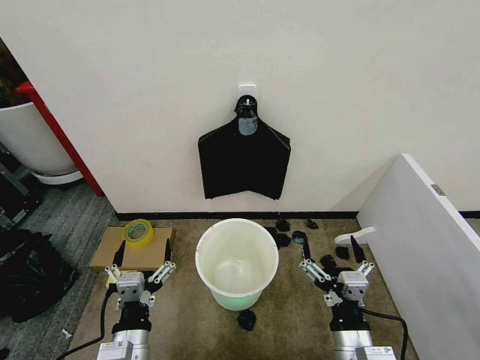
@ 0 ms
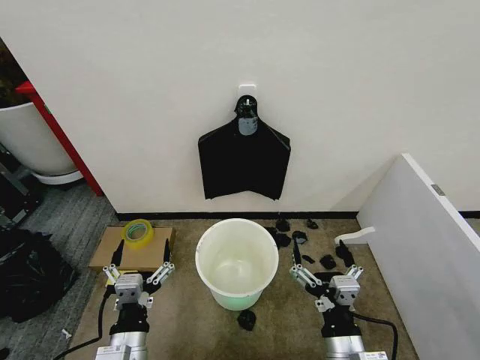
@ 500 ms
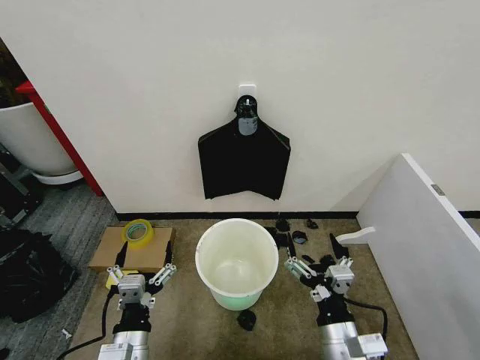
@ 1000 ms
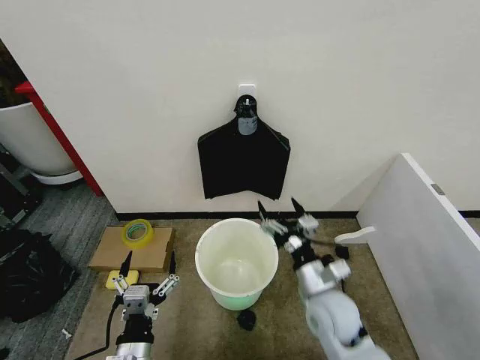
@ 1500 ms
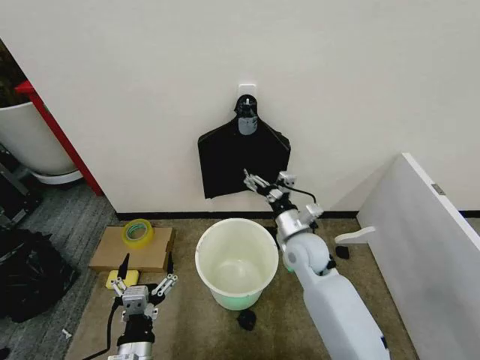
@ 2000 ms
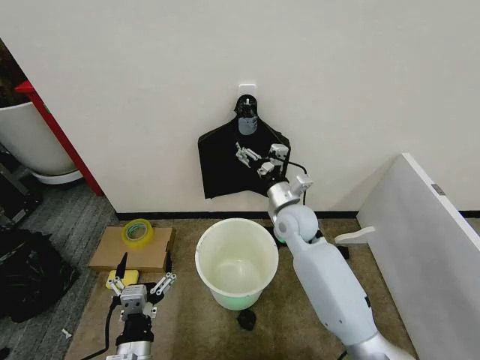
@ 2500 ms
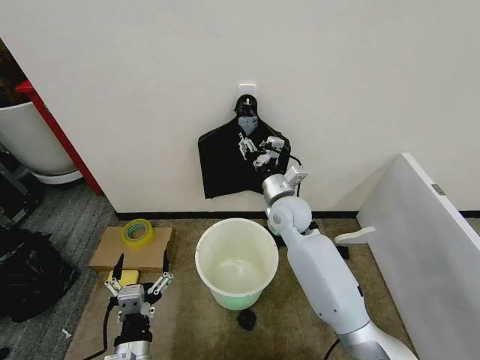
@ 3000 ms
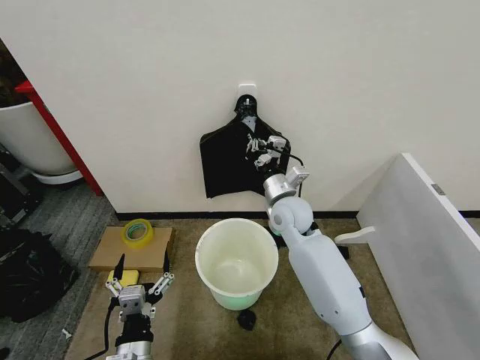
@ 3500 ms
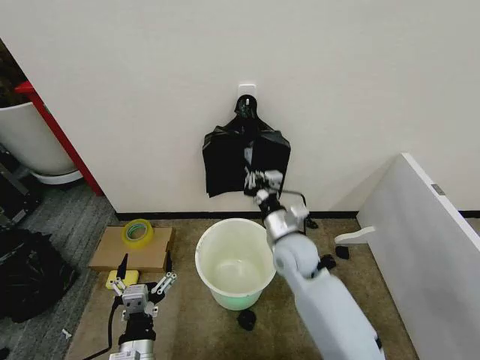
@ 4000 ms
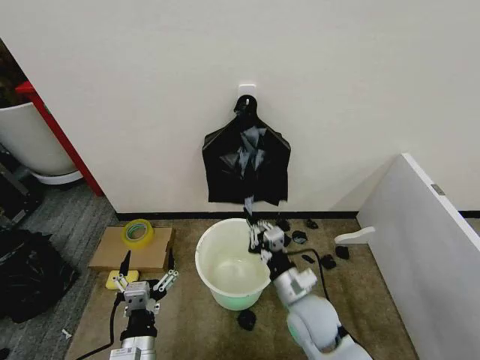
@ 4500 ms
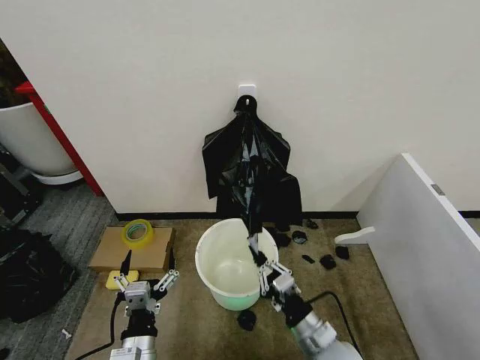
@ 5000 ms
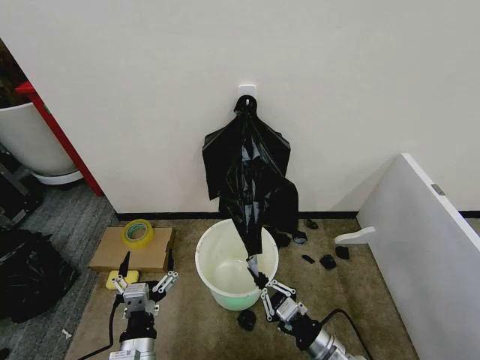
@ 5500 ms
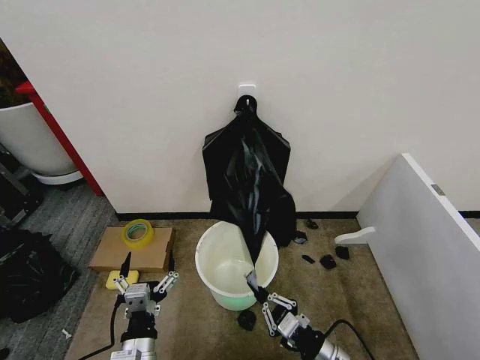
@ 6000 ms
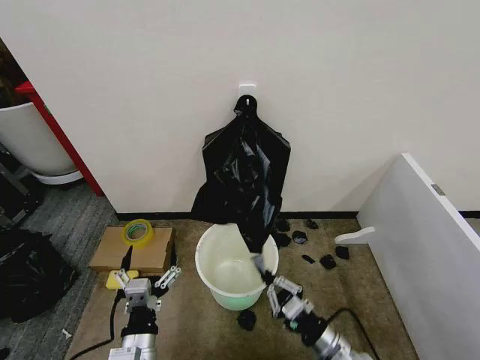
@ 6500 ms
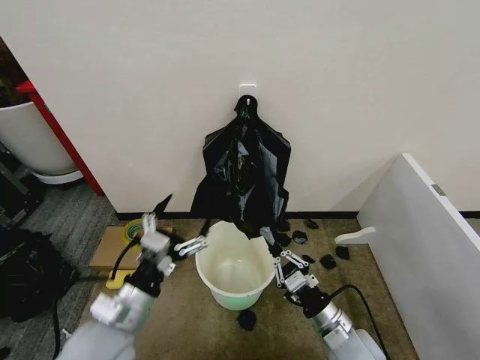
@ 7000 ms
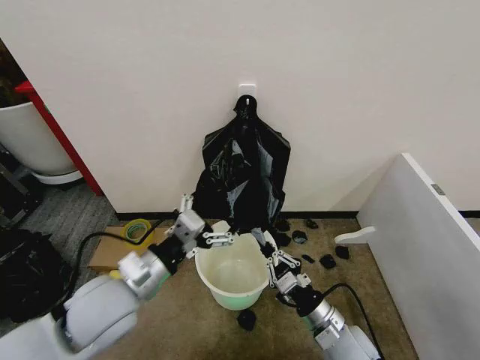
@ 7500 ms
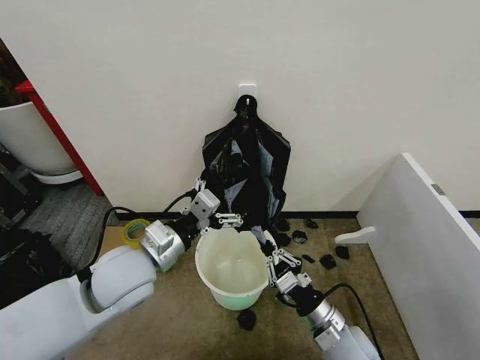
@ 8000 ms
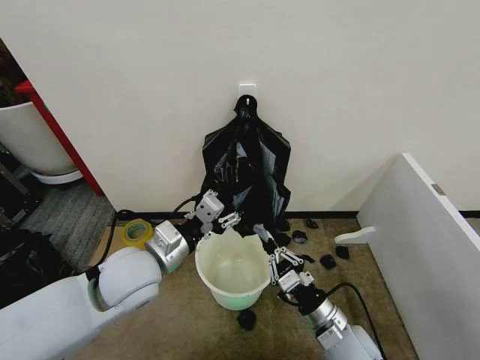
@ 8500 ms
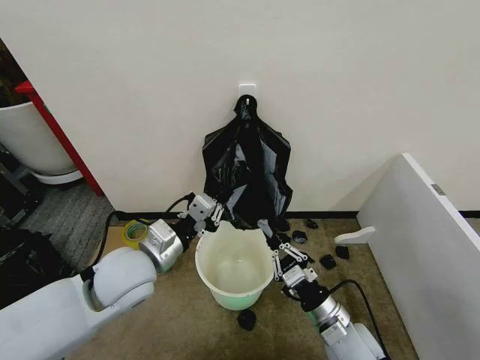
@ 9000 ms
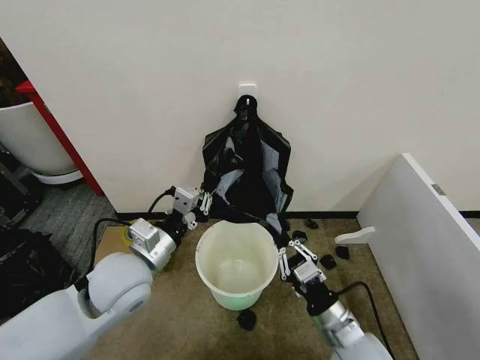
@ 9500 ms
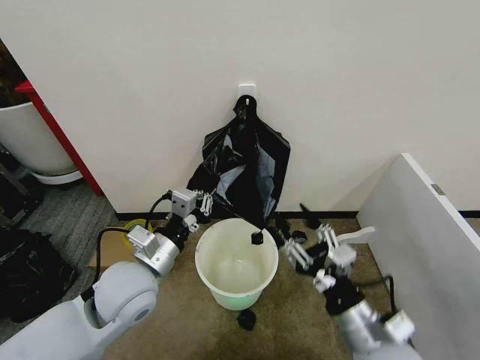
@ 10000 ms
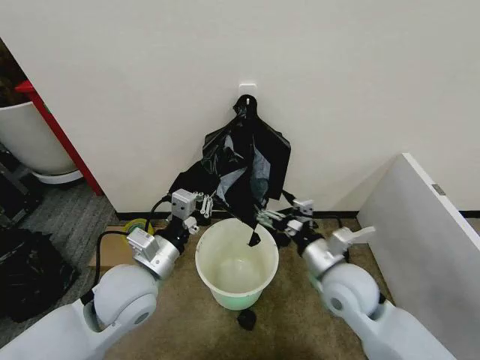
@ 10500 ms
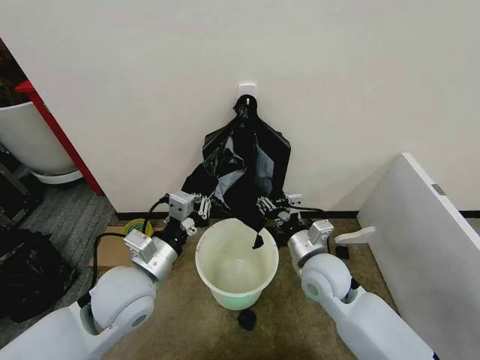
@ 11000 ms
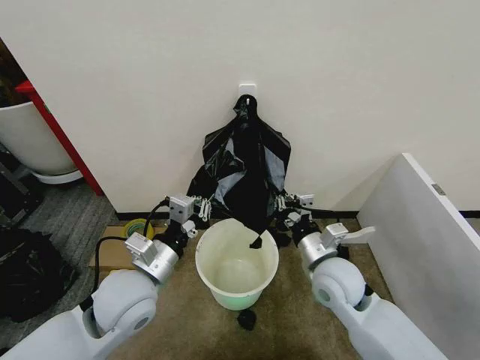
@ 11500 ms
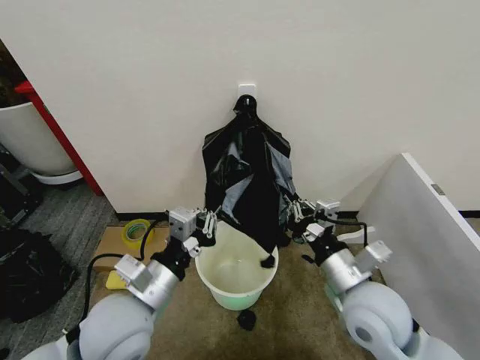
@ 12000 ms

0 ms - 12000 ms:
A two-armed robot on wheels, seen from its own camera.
Task of the whole recording: Place the garbage bag over the trash bin.
2000 ms - 4000 ms: The right gripper moves about 5 cm forward and comes back, and closes its fingers.
4000 ms - 6000 ms: The right gripper heads backward, downward and to the right, covering about 25 cm.
6000 ms - 8000 ms: The right gripper is displaced forward by some 5 cm; the left gripper goes about 25 cm upward and forward.
8000 ms - 10000 ms: The right gripper shifts roughly 10 cm upward, and opens its fingers; the left gripper closes.
10000 ms - 12000 ms: The left gripper is displaced backward by roughly 5 cm; the right gripper moves forward, approximately 10 cm, and closes.

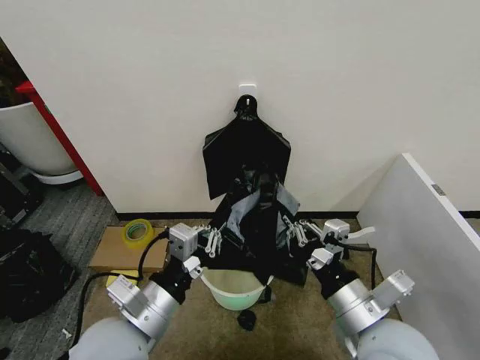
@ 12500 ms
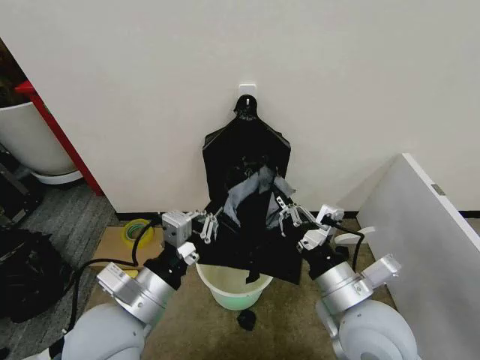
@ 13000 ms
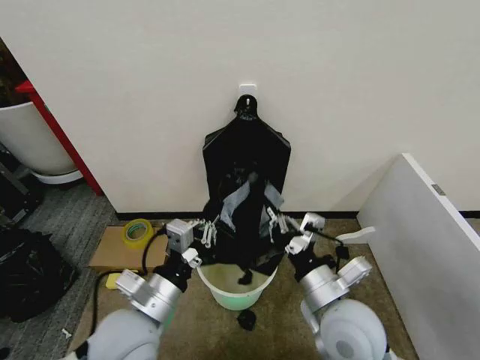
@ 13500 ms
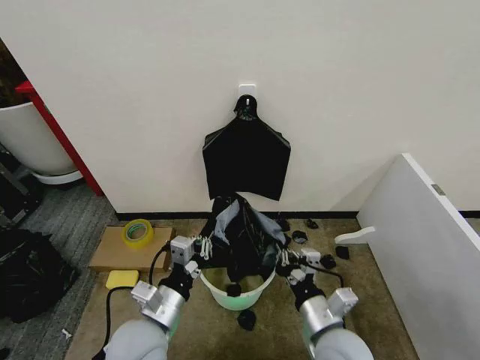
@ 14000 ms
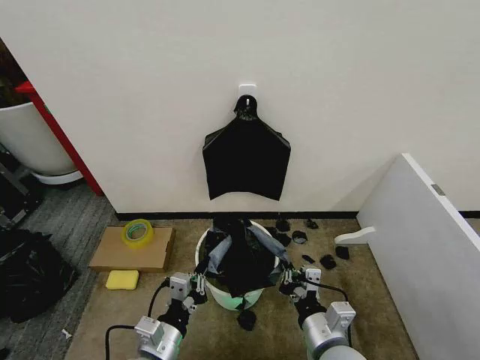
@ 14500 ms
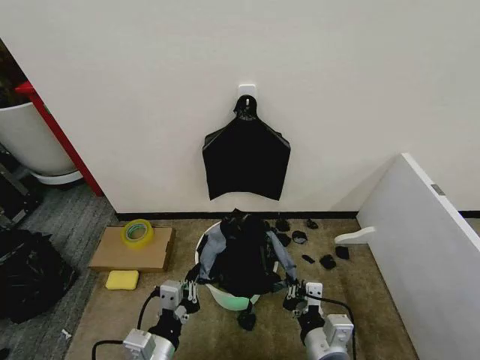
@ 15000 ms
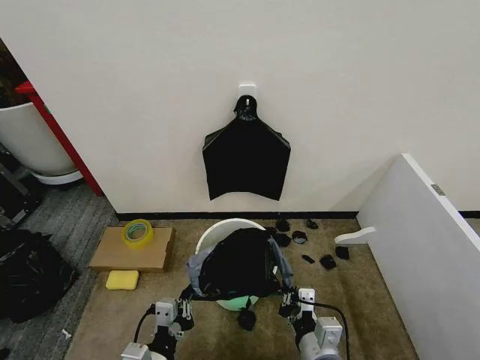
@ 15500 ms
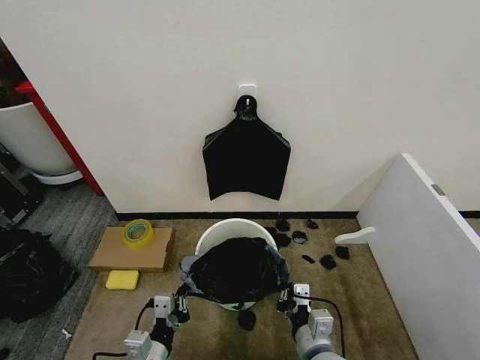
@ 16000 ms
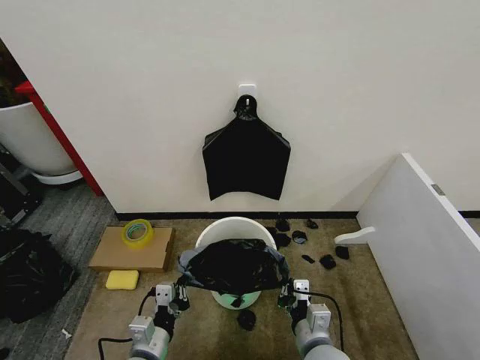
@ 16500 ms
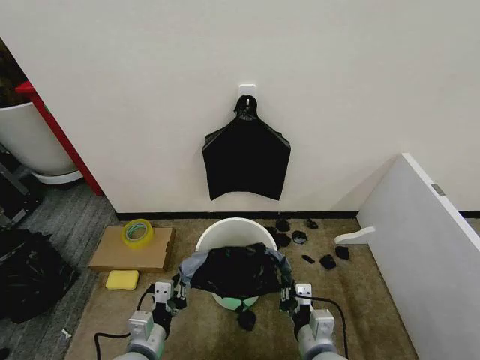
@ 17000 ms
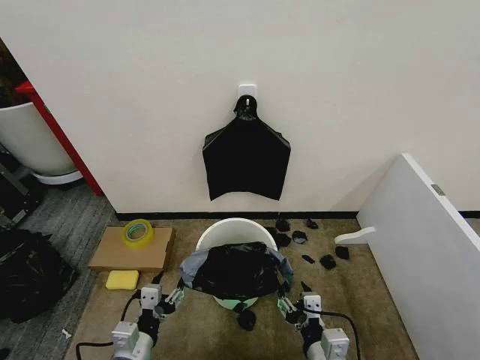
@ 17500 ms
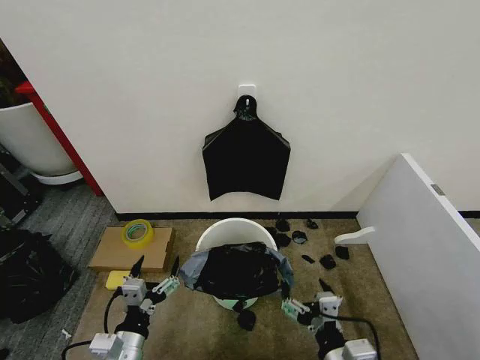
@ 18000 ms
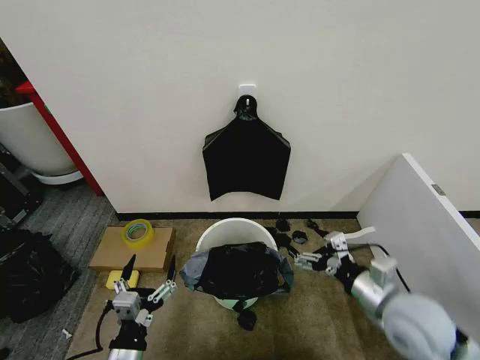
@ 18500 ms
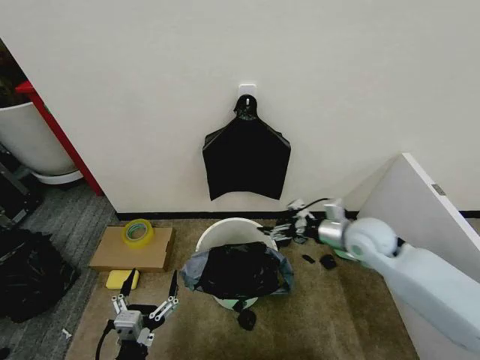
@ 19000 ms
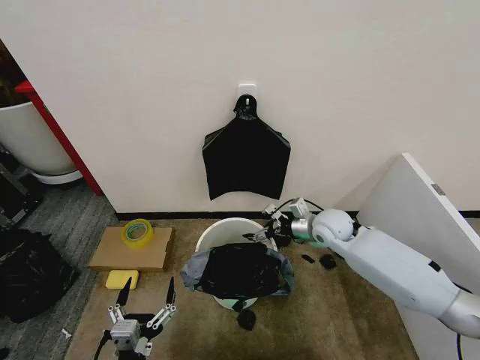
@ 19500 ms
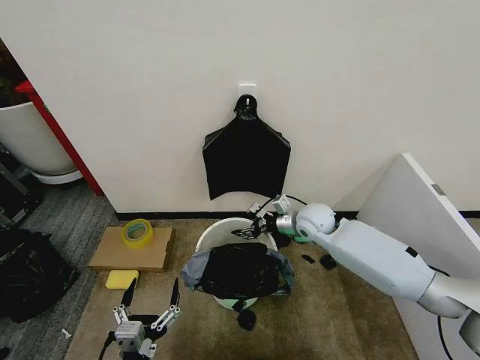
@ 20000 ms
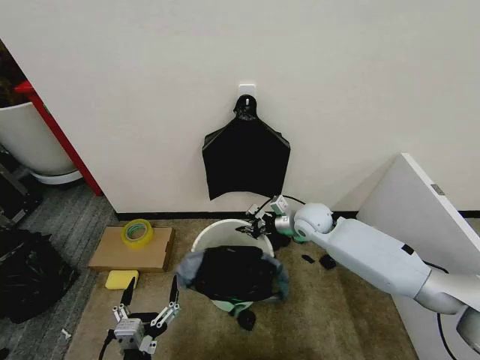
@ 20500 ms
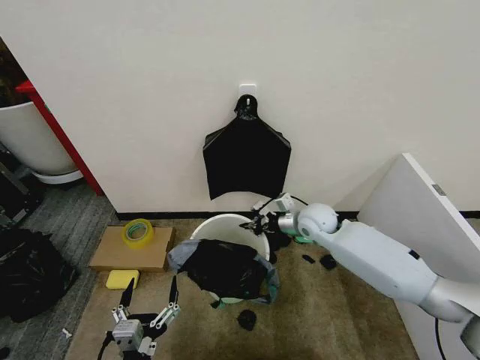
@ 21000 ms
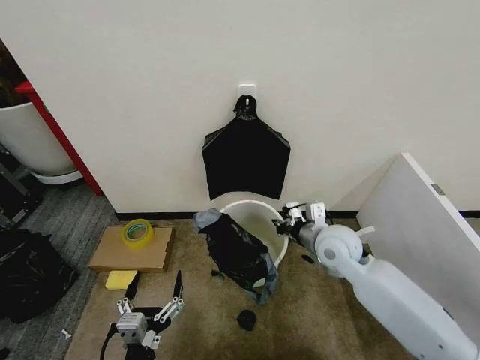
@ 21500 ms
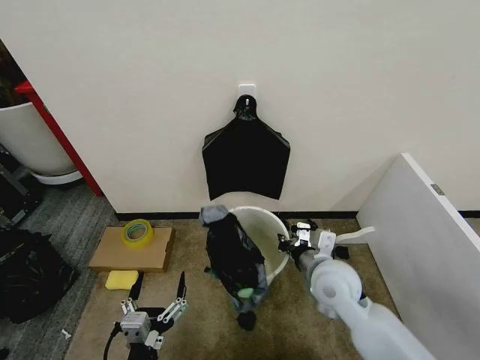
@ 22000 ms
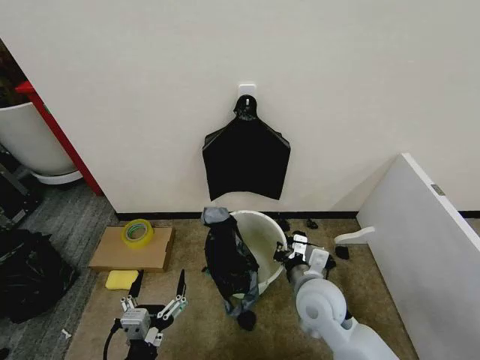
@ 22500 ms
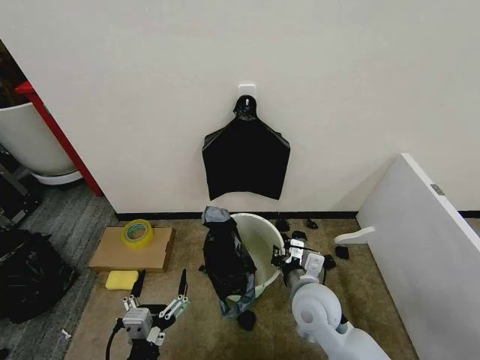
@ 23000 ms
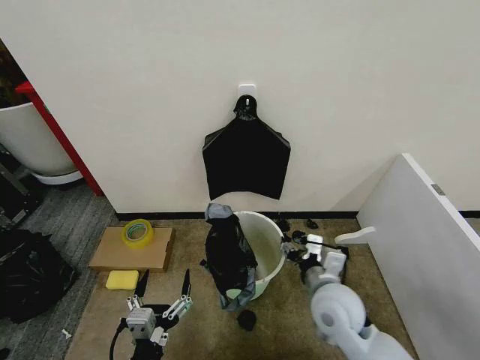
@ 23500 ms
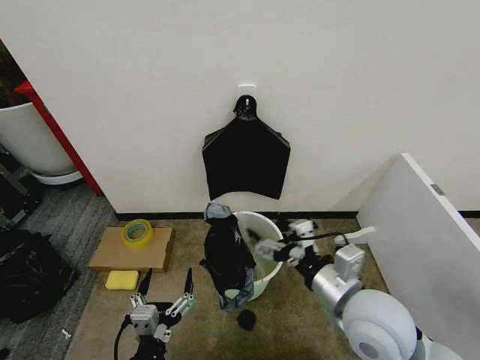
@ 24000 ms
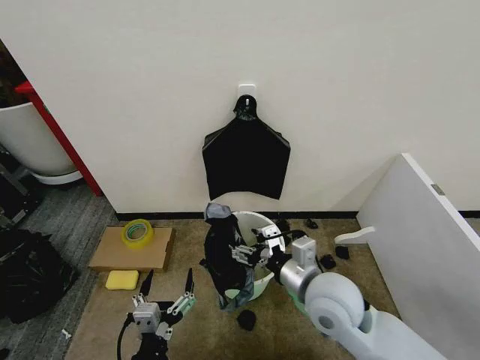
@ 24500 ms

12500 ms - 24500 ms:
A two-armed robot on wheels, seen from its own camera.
Task of the whole recording: Place the garbage bag over the trash bin.
12500 ms - 14500 ms: Both grippers travel together downward, roughly 15 cm.
14500 ms - 16500 ms: The right gripper travels downward by roughly 5 cm.
16500 ms - 18500 ms: The left gripper opens, while the right gripper moves to the right and upward, about 20 cm, and opens.
18500 ms - 20500 ms: The right gripper moves forward, about 25 cm, and closes, while the left gripper shifts by some 5 cm.
20500 ms - 22500 ms: The right gripper moves backward, roughly 20 cm.
22500 ms - 24500 ms: The right gripper travels upward by approximately 5 cm, and opens its fingers.

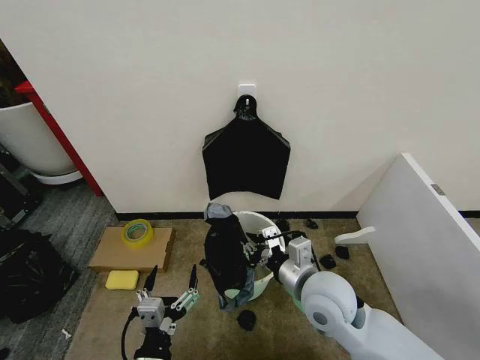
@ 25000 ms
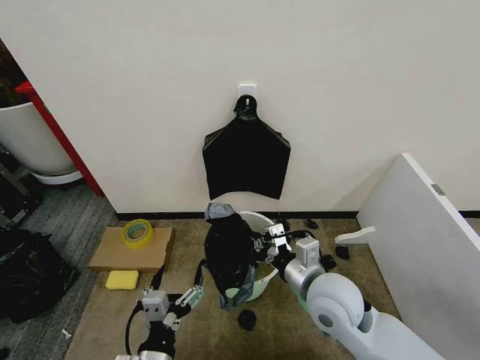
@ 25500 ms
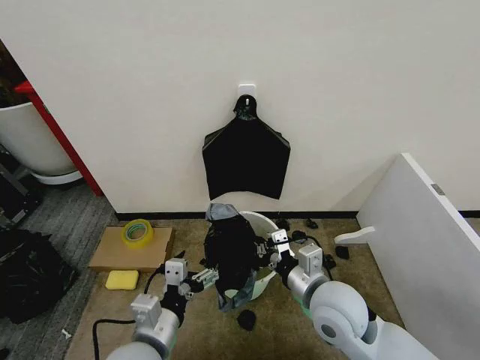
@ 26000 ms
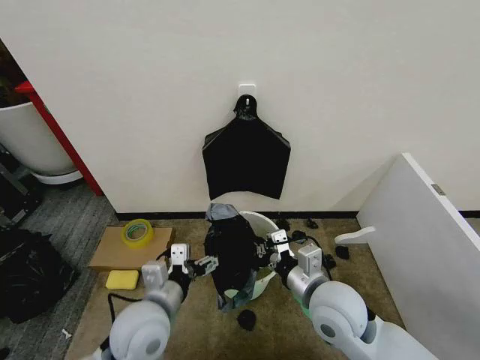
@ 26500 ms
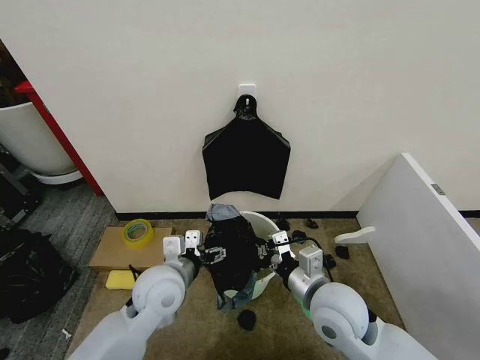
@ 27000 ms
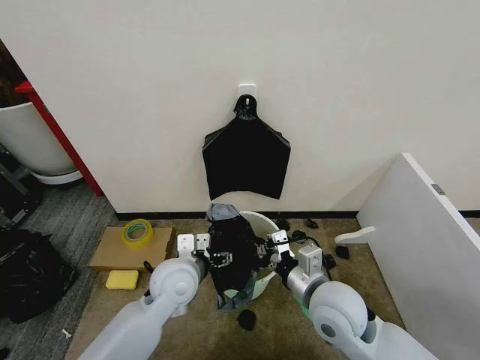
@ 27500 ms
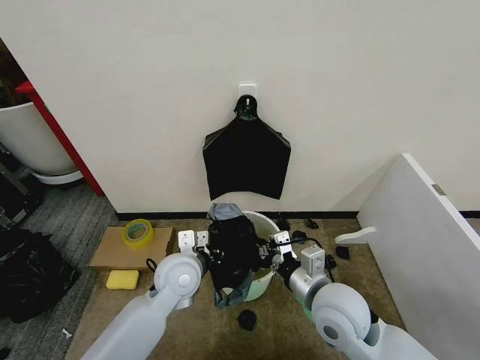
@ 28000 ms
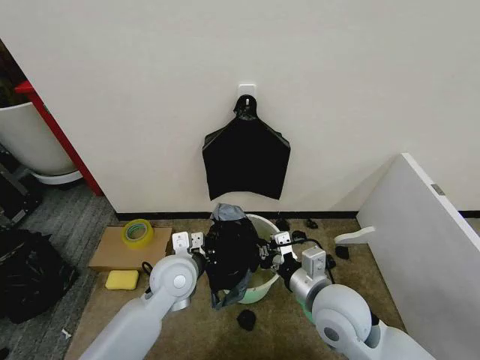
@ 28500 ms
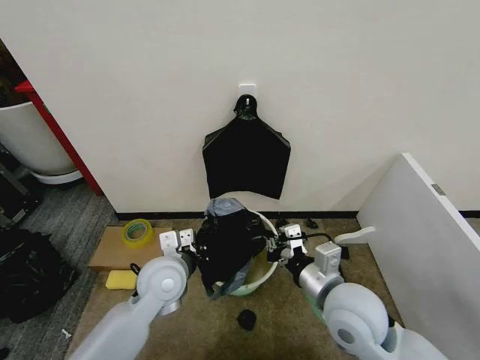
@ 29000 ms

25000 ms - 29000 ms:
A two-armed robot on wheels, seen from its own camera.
Task of the whole recording: Place the garbage bag over the trash bin.
25000 ms - 27000 ms: The left gripper travels forward and upward by some 20 cm.
27000 ms - 29000 ms: The left gripper closes up.
